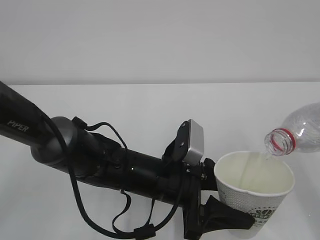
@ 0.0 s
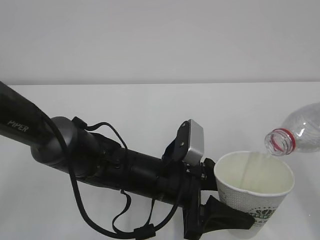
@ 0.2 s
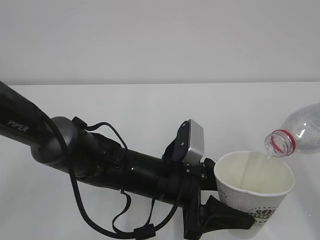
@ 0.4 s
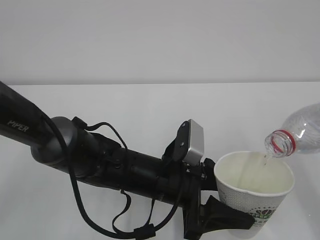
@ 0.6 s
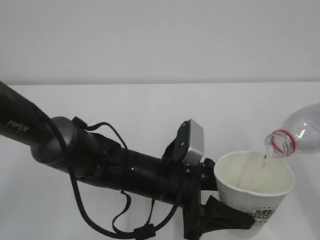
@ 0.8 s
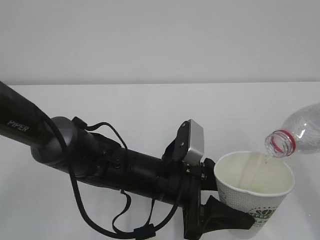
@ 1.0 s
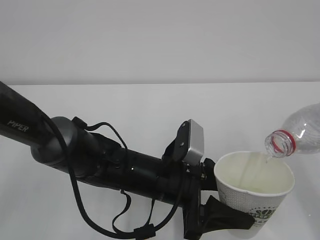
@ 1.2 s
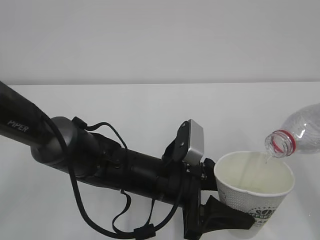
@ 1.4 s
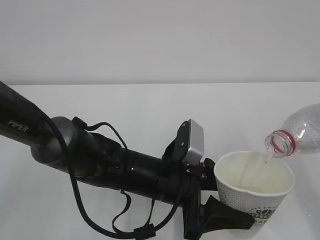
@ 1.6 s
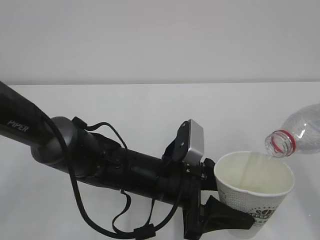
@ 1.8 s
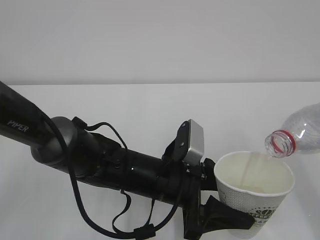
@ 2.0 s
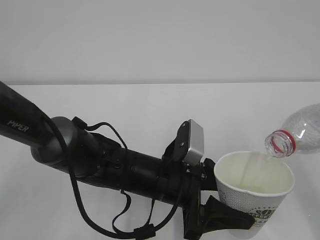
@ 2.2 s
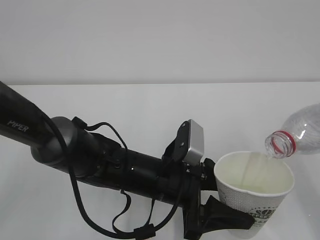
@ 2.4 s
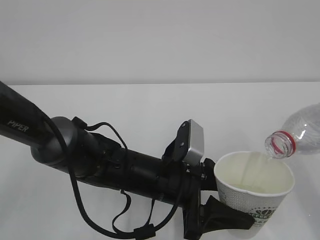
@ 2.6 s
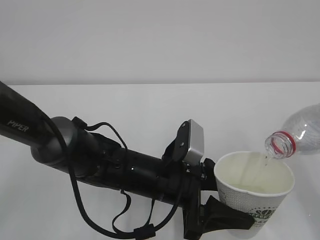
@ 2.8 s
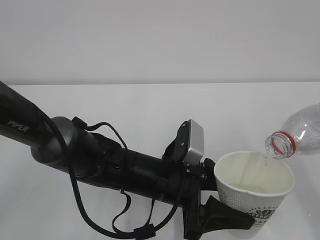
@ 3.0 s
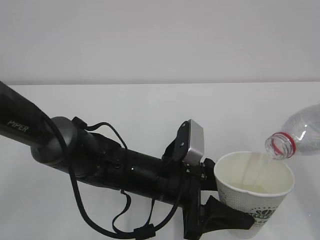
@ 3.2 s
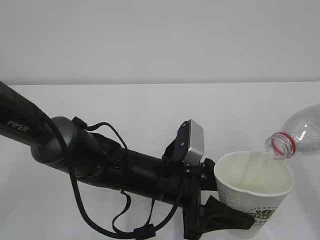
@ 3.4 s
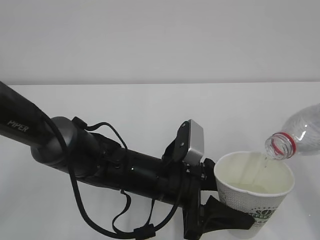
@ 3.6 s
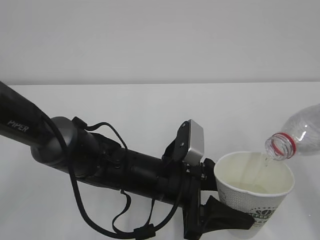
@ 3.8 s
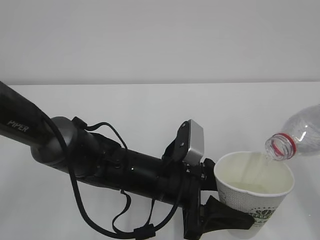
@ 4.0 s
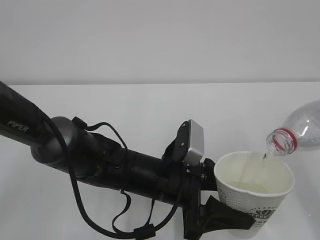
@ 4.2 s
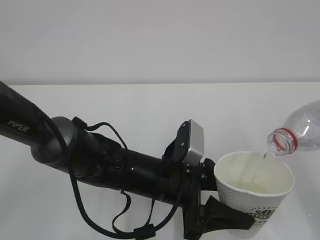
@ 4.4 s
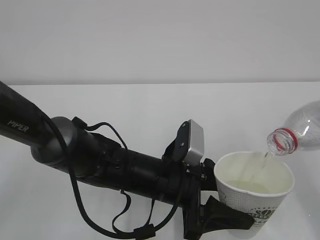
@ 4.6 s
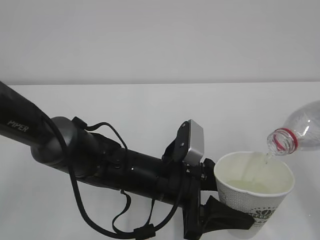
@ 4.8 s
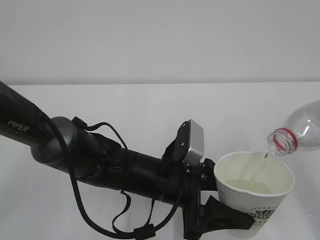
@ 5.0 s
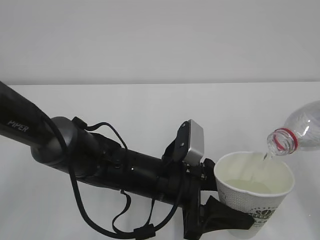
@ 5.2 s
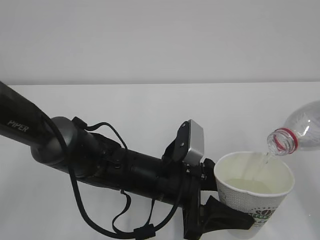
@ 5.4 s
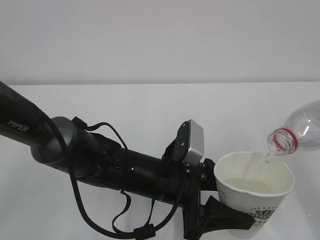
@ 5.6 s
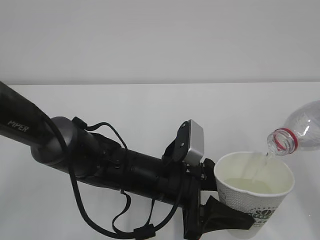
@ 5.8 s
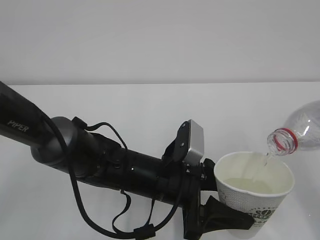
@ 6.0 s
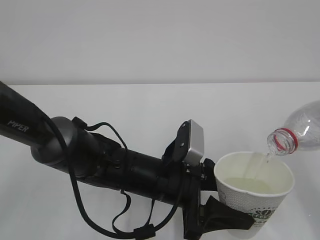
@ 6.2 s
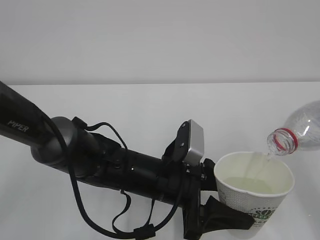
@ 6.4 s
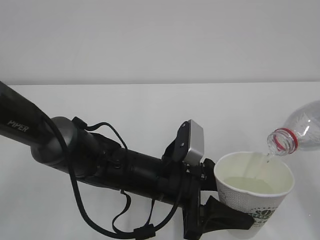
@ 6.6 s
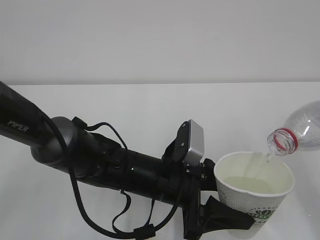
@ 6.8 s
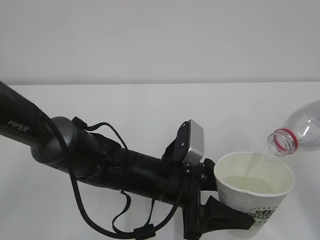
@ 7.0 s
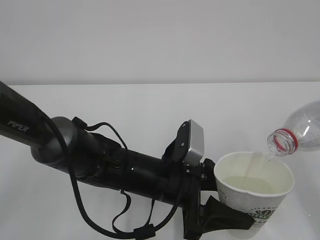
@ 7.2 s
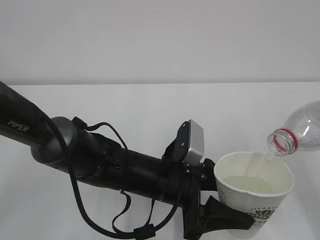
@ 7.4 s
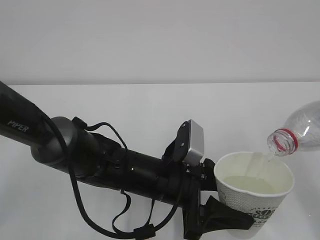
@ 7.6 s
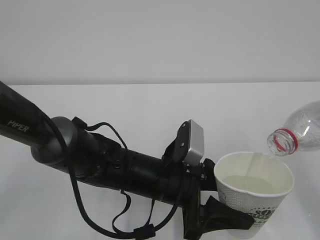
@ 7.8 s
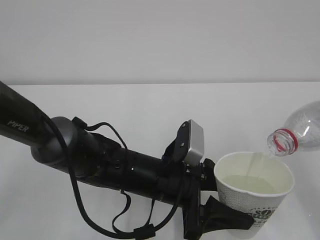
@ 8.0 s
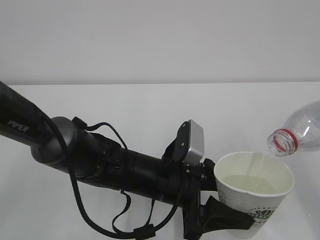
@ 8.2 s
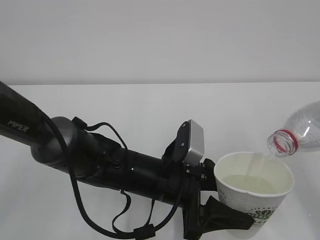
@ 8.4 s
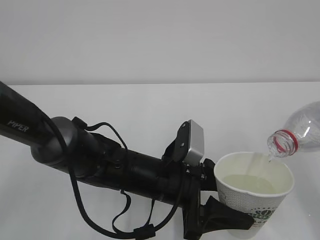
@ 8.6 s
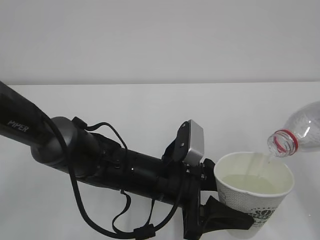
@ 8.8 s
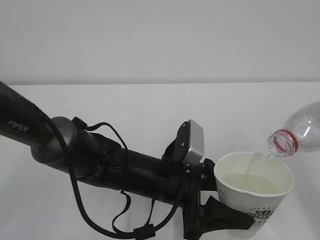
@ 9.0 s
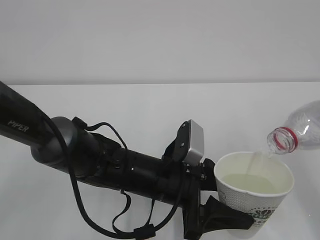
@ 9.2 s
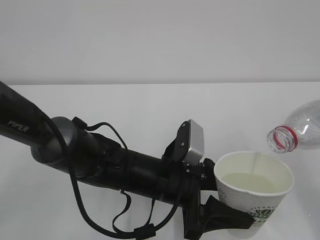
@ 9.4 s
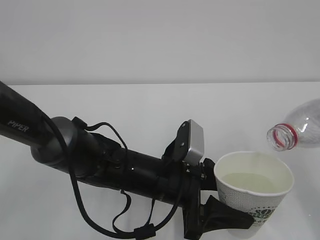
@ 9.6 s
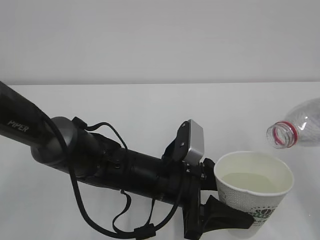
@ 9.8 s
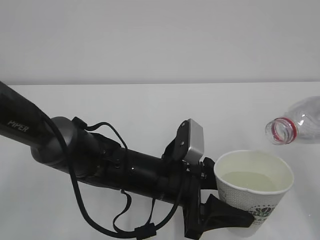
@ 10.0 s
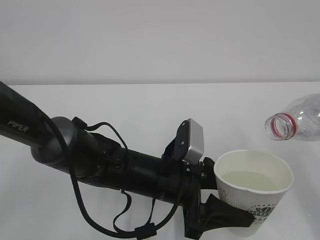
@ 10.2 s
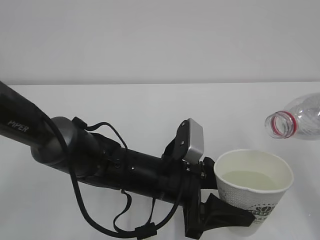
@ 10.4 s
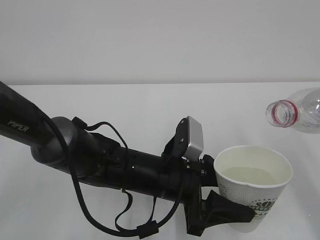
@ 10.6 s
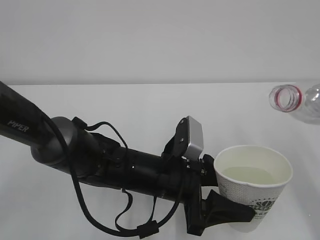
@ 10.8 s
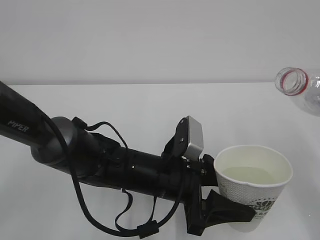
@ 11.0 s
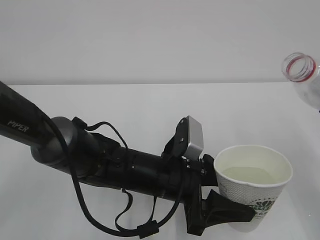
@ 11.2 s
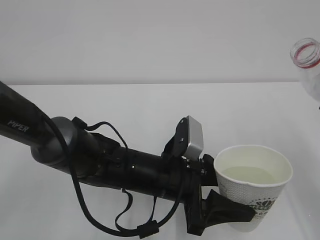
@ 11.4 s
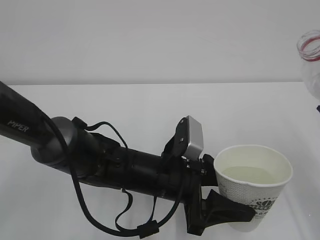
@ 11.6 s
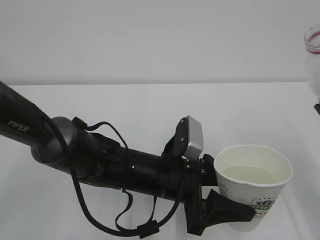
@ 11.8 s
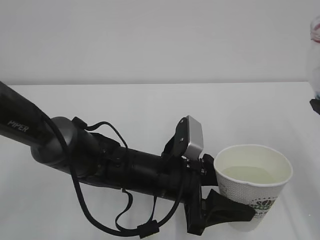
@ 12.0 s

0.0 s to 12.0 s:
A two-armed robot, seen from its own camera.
0.0 to 9.0 s: Both grippers stay put.
9.0 to 10.4 s: There are only small adjustments of the grippers.

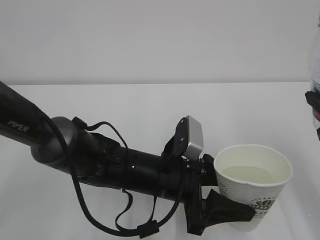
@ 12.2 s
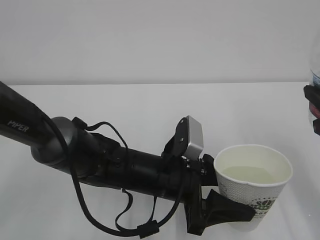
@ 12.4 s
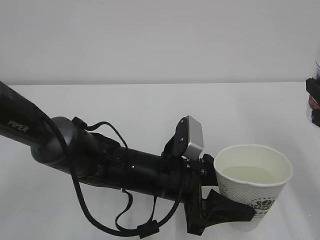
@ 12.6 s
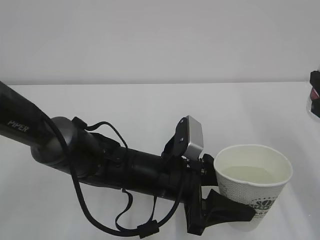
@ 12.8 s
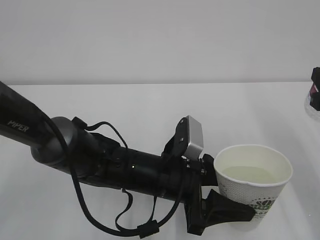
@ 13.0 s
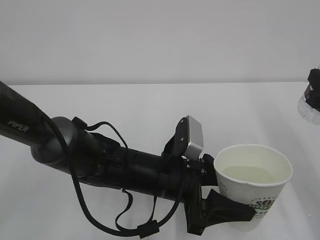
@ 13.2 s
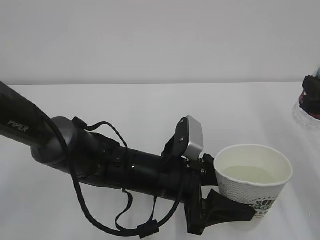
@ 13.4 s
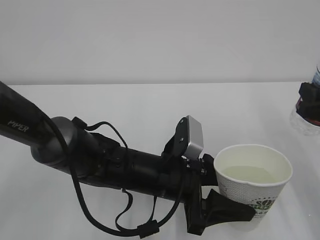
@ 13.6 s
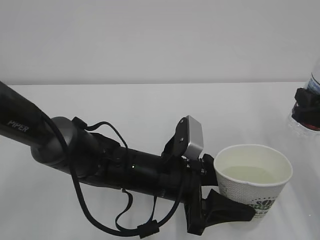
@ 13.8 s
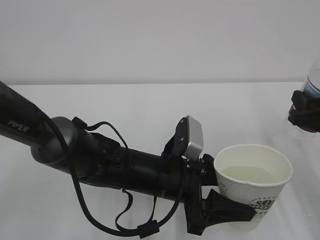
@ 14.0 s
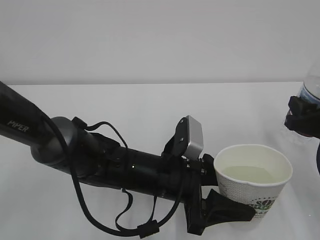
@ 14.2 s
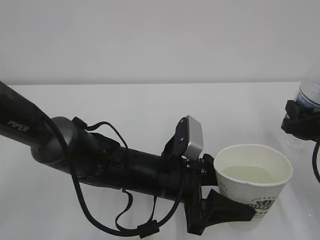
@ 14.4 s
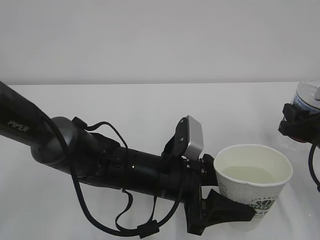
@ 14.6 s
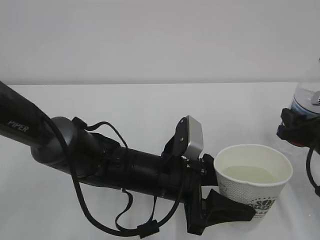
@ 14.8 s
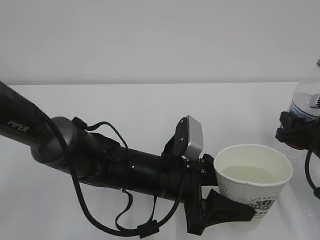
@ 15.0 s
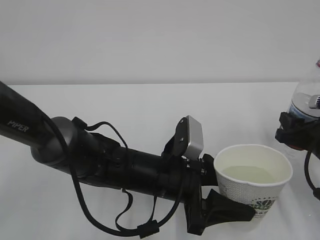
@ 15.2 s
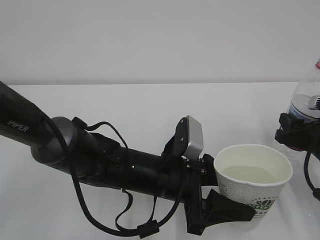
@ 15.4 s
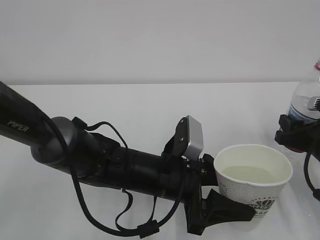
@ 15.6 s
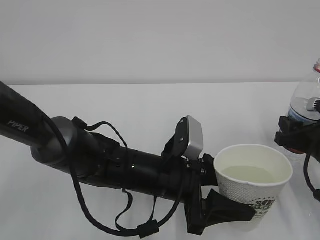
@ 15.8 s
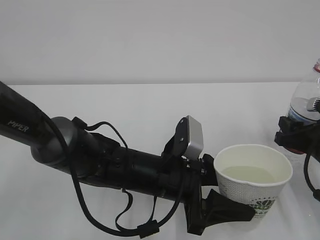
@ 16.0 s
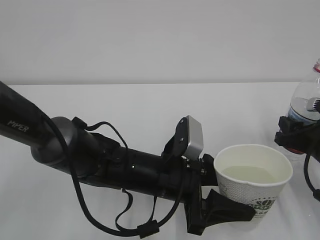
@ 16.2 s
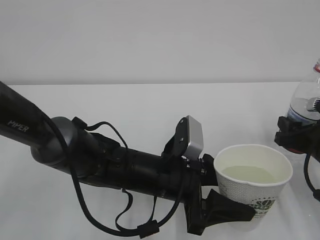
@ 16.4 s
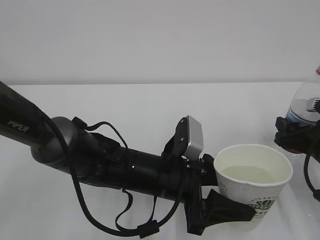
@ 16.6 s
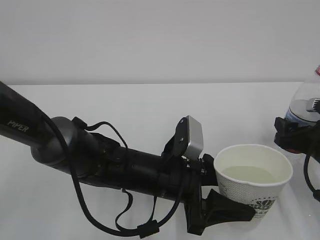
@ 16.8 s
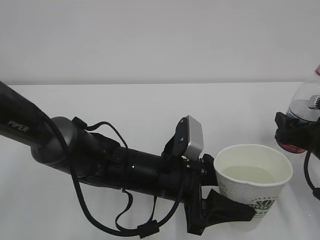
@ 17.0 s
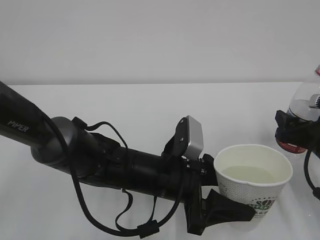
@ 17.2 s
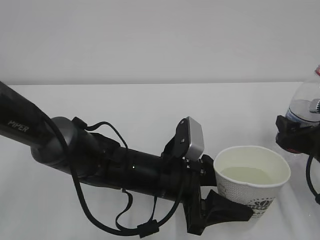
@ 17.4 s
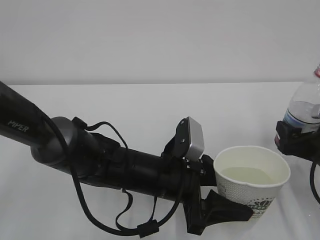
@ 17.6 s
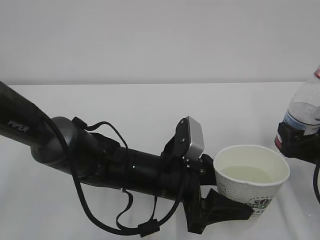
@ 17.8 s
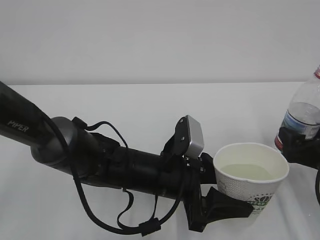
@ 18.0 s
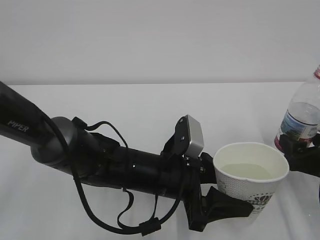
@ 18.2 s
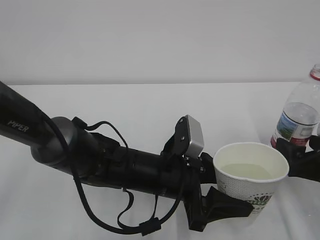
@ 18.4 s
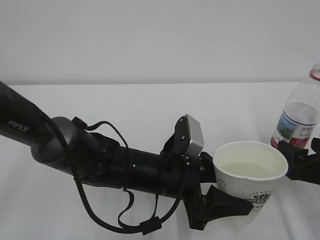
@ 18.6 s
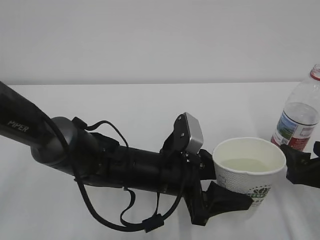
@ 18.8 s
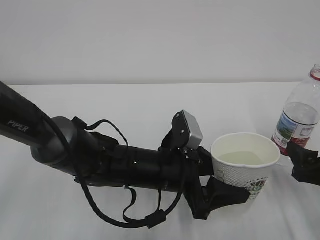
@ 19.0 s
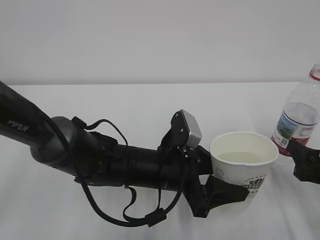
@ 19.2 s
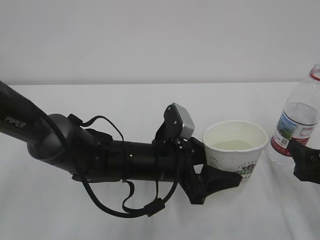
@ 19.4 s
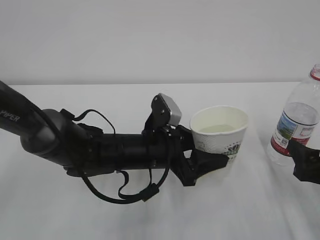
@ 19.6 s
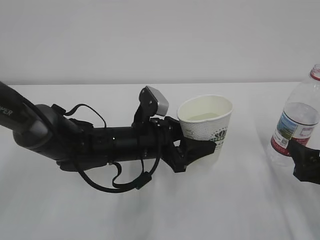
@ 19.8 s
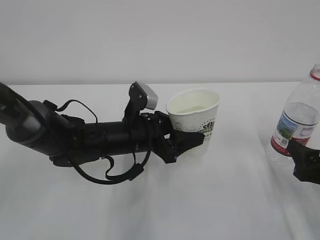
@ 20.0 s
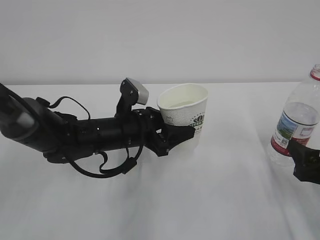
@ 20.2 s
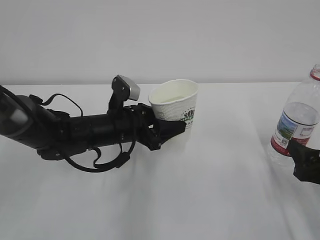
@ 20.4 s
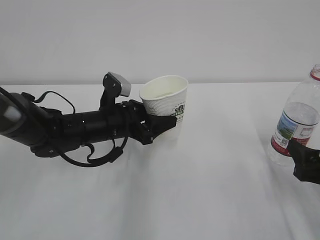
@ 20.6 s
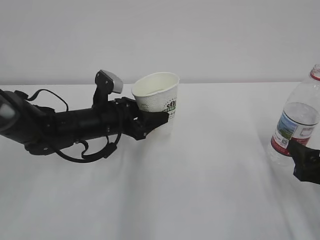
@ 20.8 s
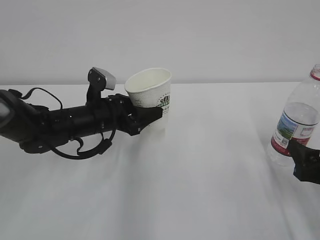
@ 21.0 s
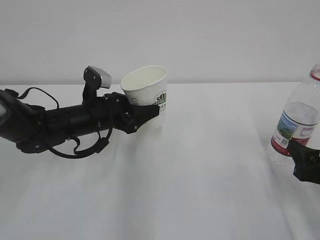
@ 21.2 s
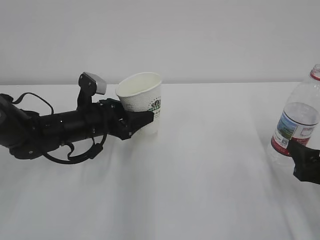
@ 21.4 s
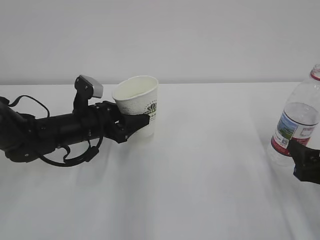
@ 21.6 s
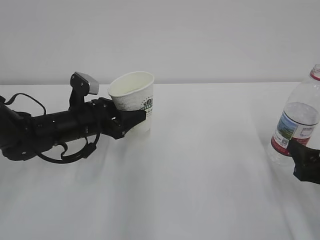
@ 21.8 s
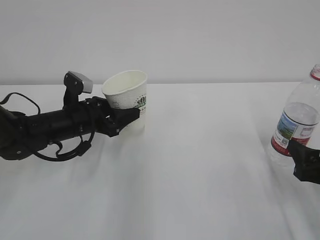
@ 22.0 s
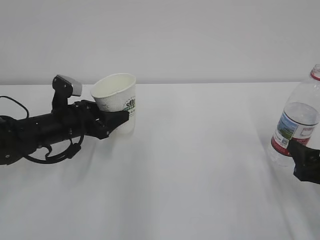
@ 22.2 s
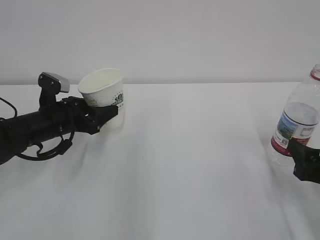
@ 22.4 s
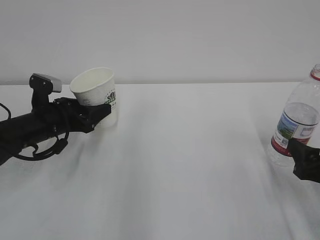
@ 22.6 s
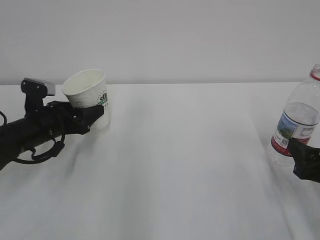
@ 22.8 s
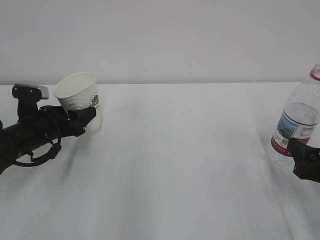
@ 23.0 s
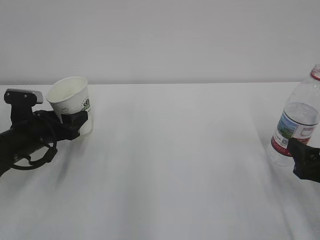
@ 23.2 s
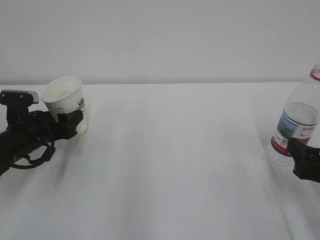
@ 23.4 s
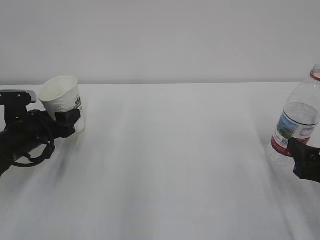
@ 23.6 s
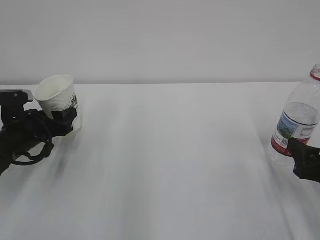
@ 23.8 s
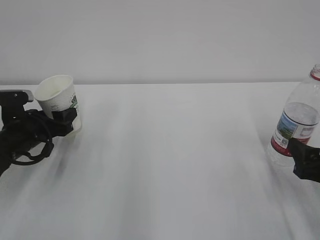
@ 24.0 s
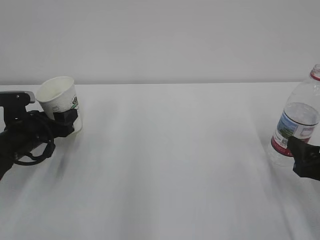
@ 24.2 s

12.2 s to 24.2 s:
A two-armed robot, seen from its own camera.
12.2 to 13.8 s: The right gripper moves downward and forward, approximately 10 cm.
13.8 to 15.2 s: The right gripper moves downward, about 5 cm.
15.2 to 16.6 s: The right gripper opens up.
16.6 to 18.2 s: The grippers stay close to where they were, moving slightly.
18.2 to 19.8 s: The left gripper goes about 5 cm forward.
19.8 to 21.2 s: The left gripper moves to the left and forward, roughly 10 cm.
21.2 to 22.6 s: The left gripper moves to the left, about 10 cm.
